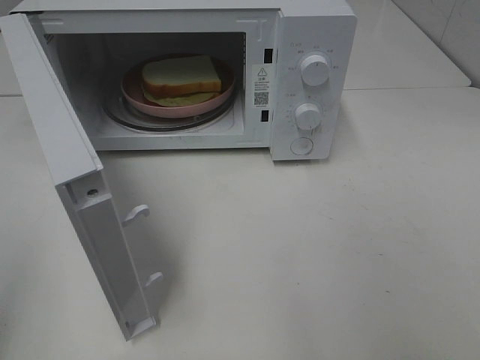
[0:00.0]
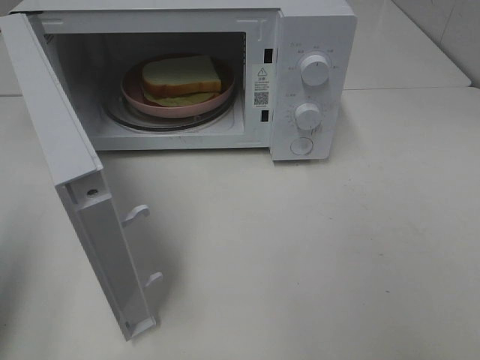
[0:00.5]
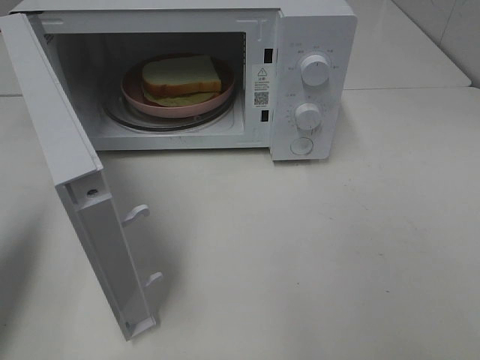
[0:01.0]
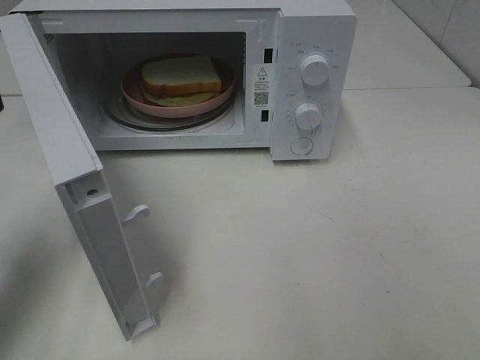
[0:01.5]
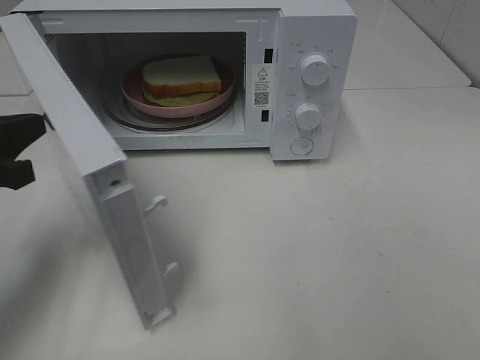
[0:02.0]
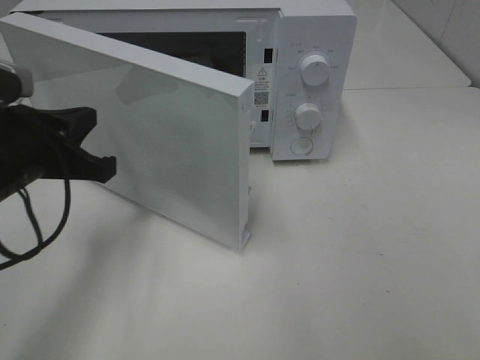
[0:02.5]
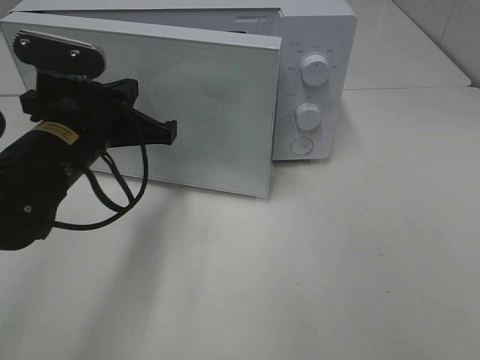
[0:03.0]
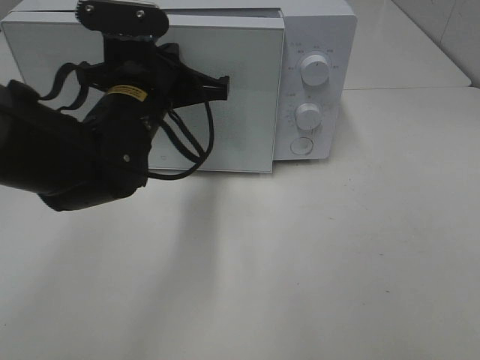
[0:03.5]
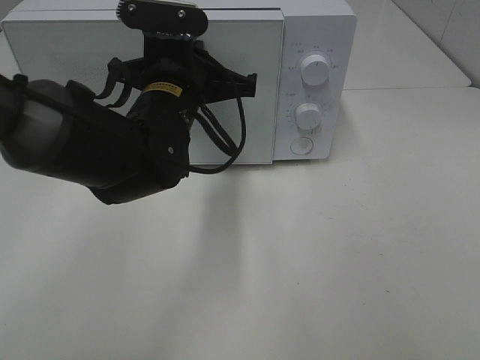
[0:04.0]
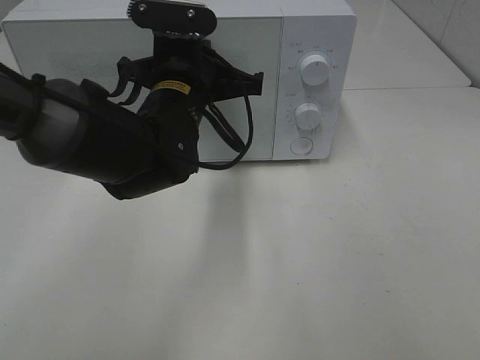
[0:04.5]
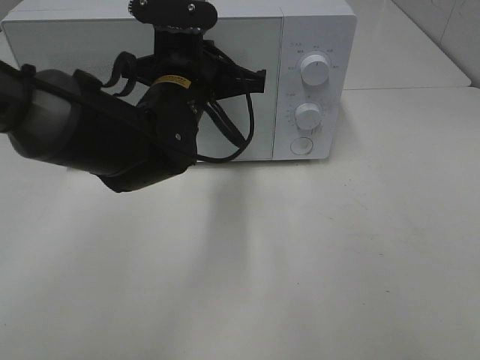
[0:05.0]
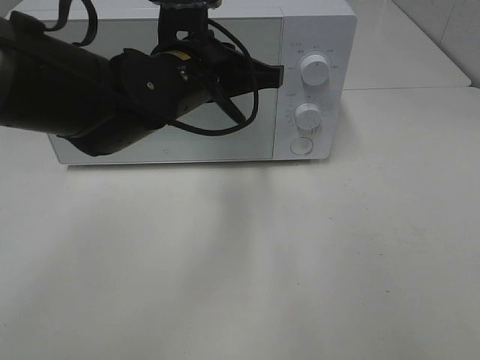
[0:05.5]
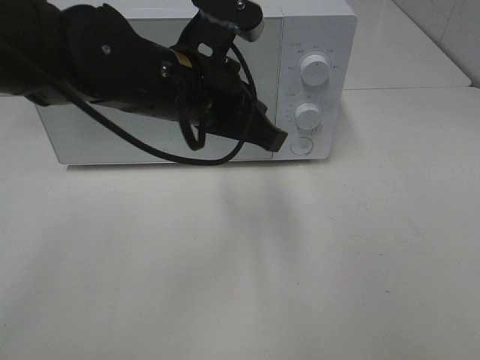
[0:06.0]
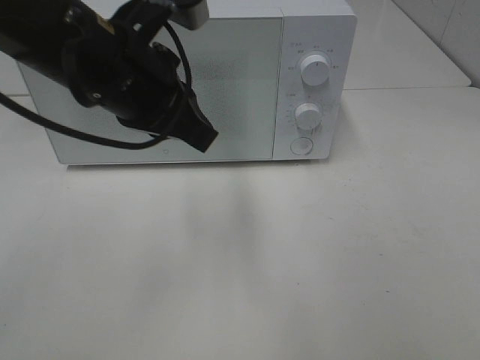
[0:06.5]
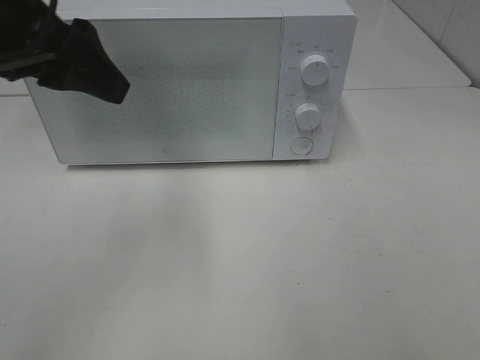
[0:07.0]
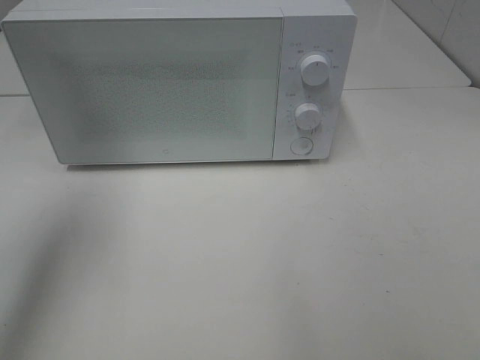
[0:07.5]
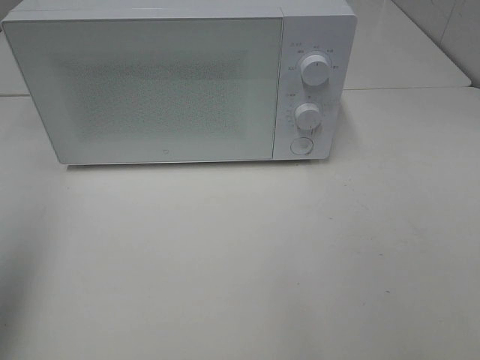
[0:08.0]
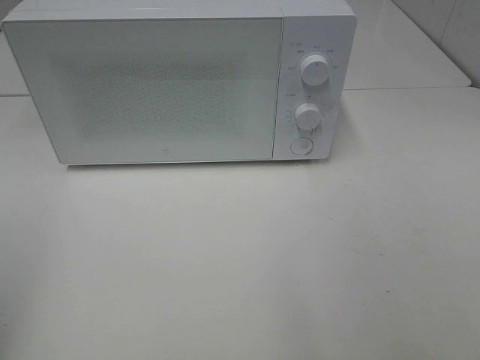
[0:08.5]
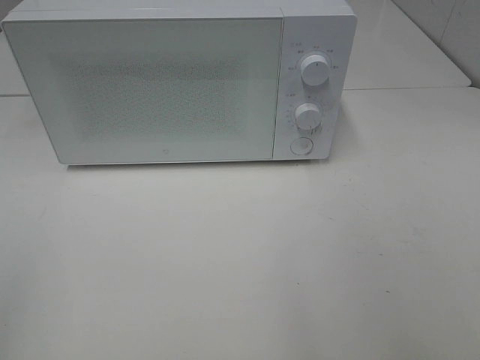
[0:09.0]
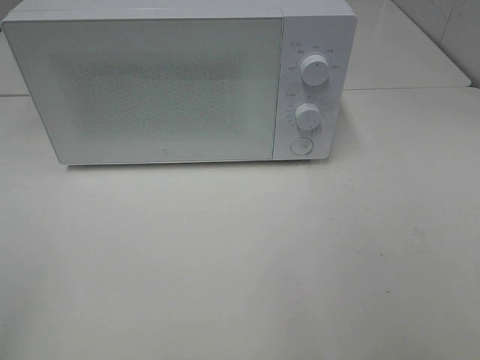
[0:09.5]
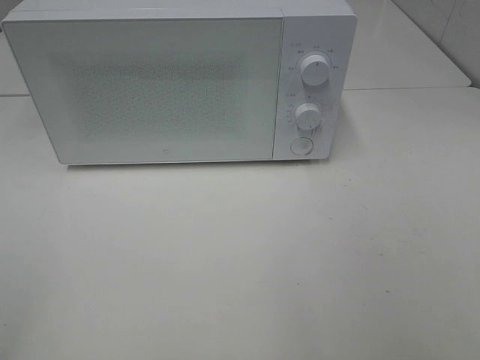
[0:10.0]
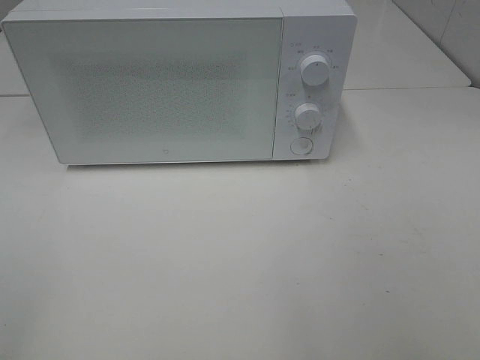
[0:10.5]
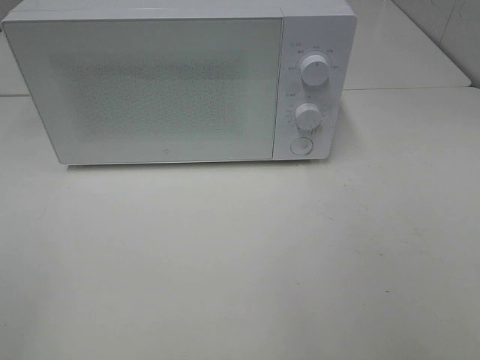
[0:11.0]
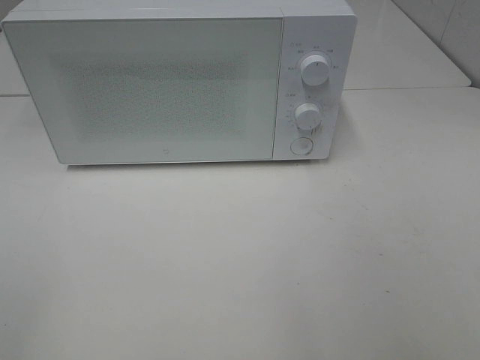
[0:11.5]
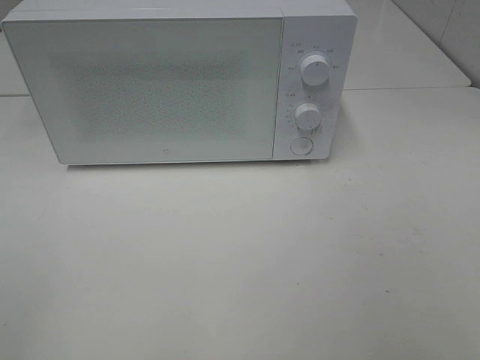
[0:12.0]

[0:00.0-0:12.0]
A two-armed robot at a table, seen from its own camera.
Task of the whole recording: Heat Sandwich.
Step, 0:00.0 to 0:06.0: Left hand: close the microwave door.
0:00.0 to 0:02.0: The left gripper travels forward and downward by roughly 20 cm, and closes.
0:02.0 to 0:04.0: The left gripper is displaced to the right and forward by some 25 cm.
0:04.0 to 0:06.0: The left gripper ends up approximately 5 cm from where it was.
0:06.0 to 0:08.0: The left gripper is displaced to the left, backward and upward by some 35 cm, and opens its fingers.
0:08.0 to 0:10.0: The left gripper travels backward and downward by roughly 15 cm.

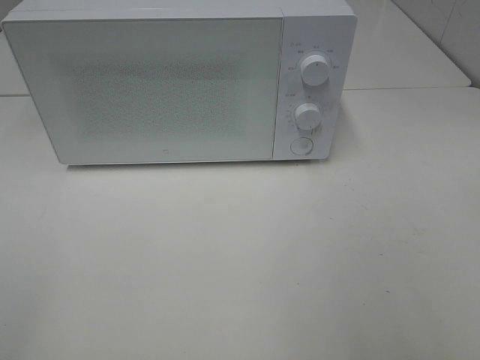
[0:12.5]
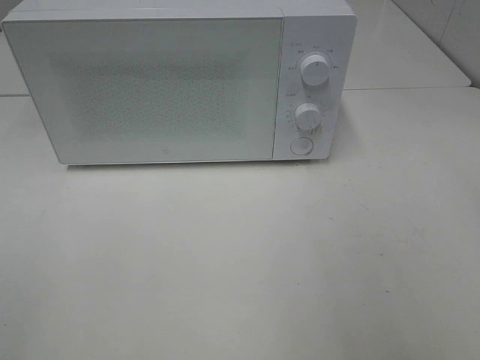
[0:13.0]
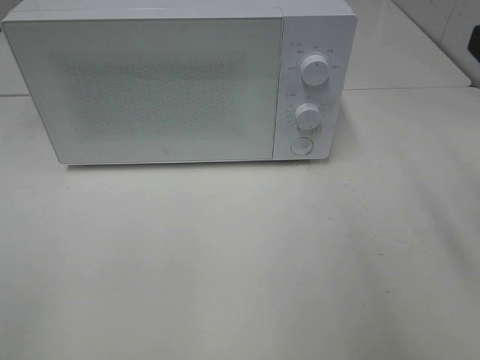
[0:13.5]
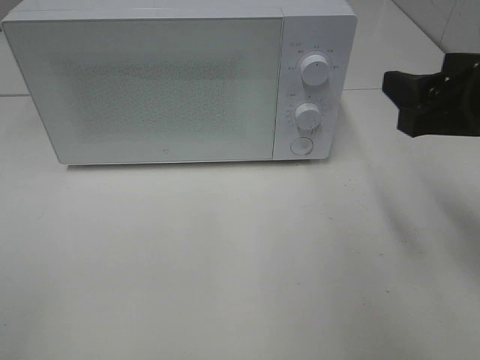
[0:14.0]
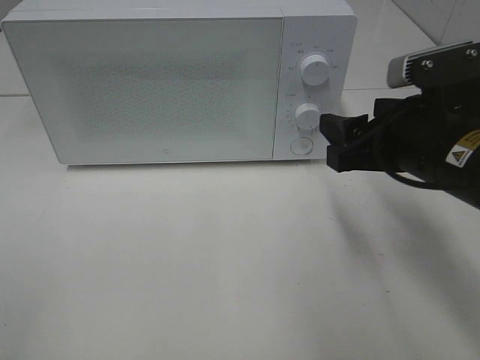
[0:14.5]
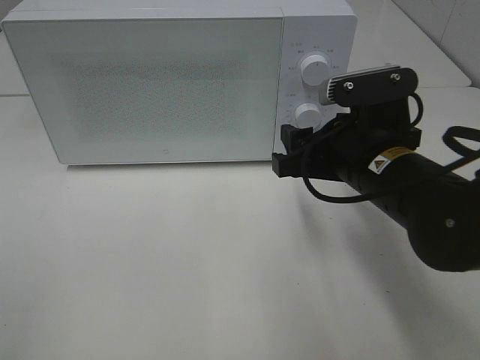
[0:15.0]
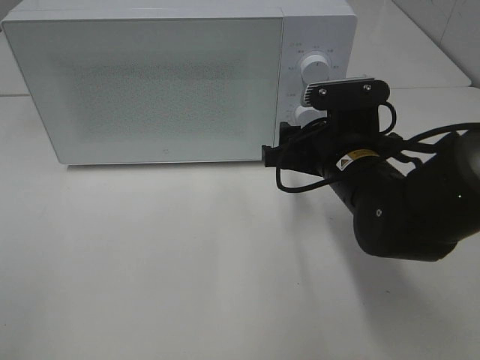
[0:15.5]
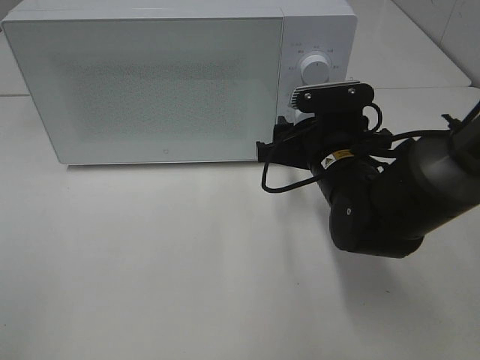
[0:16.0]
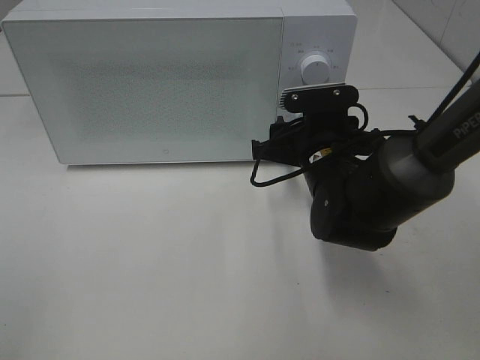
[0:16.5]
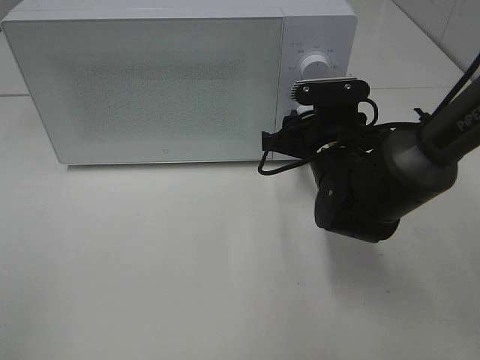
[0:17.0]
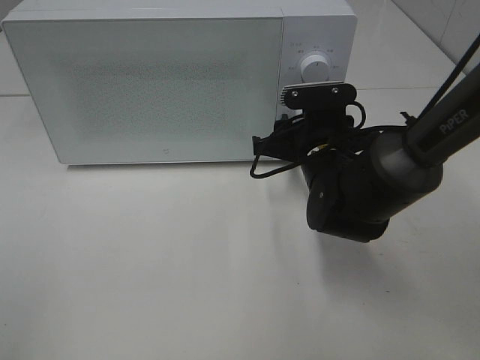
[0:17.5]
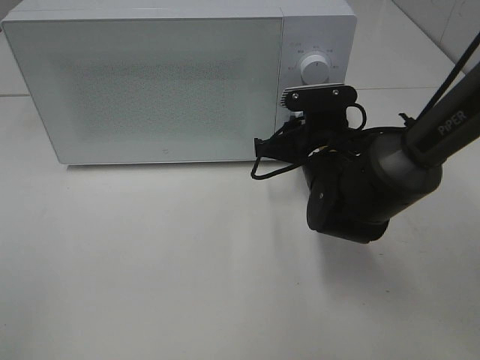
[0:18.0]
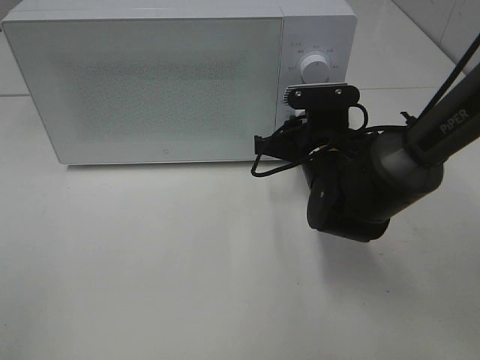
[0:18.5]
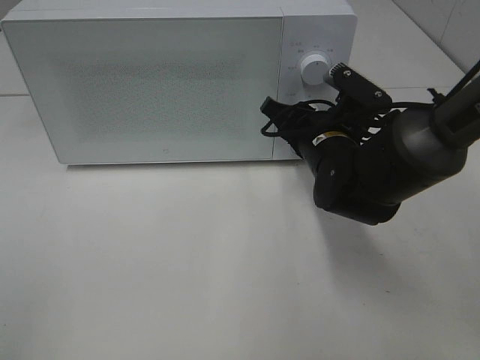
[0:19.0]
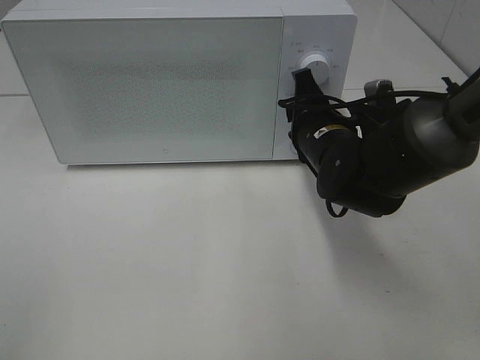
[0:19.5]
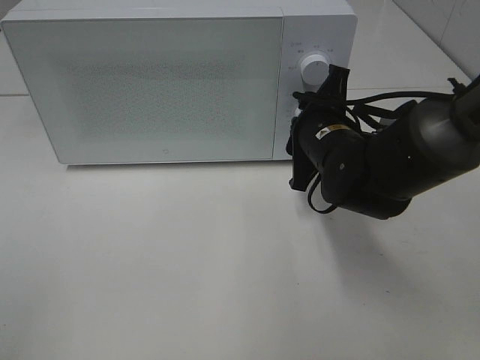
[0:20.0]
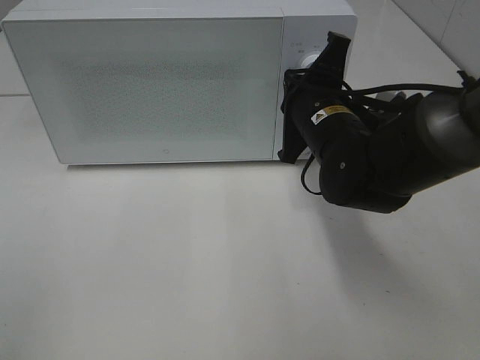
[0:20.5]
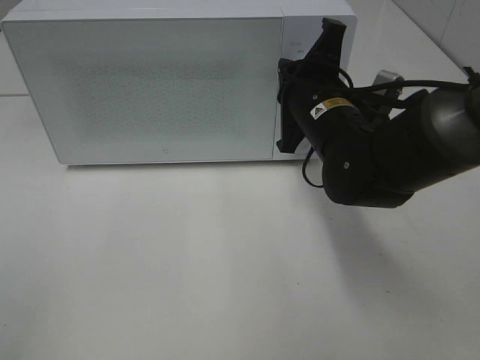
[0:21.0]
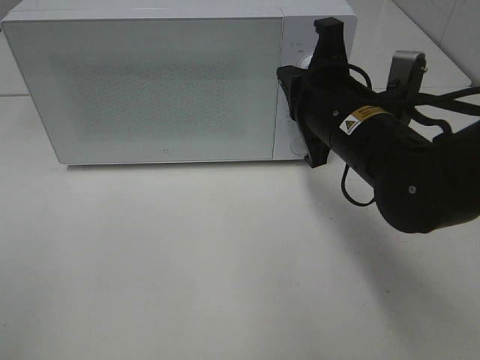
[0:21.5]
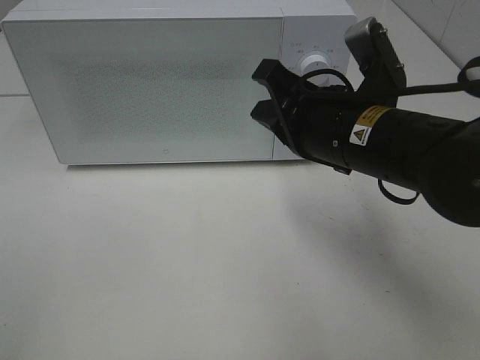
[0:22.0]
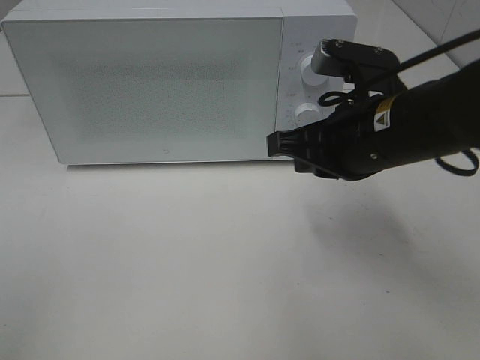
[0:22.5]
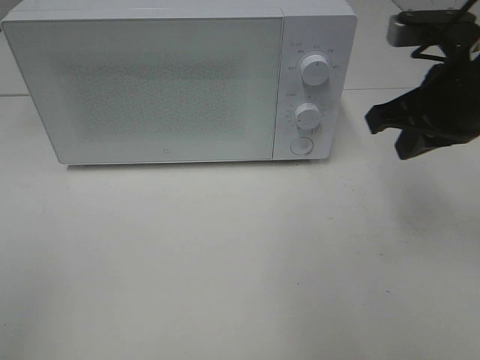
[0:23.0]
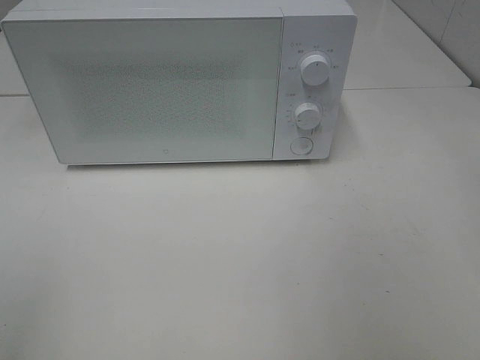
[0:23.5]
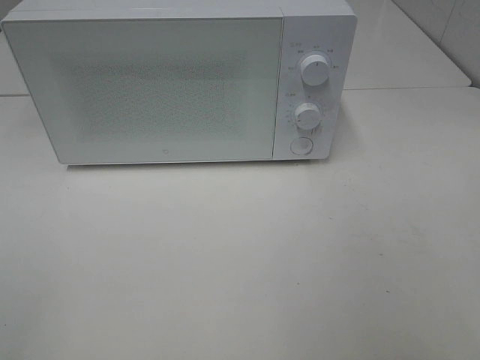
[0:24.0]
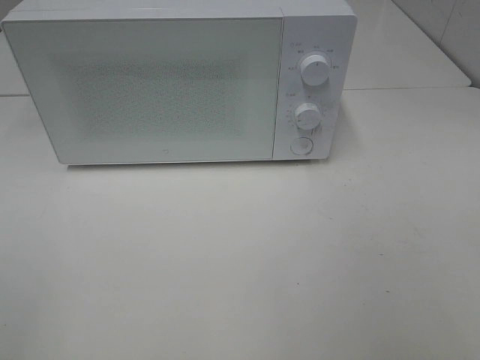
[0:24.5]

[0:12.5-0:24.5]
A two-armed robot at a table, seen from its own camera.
Task of the whole recording: Heat Sandwich.
Step, 0:12.5 to 0:20.5: Right hand: twist timer button.
0:12.5 to 0:14.5: The right gripper heads forward, downward and to the left, covering roughly 25 cm.
0:14.5 to 0:16.5: The right gripper goes roughly 15 cm forward, downward and to the left.
0:16.5 to 0:18.5: The grippers move only a little.
0:18.5 to 0:20.5: The right gripper goes approximately 5 cm upward, and closes up.
0:20.5 to 0:22.5: The right gripper goes approximately 5 cm backward.
0:22.5 to 0:24.5: The right gripper is displaced backward and to the right by approximately 25 cm, and opens up.

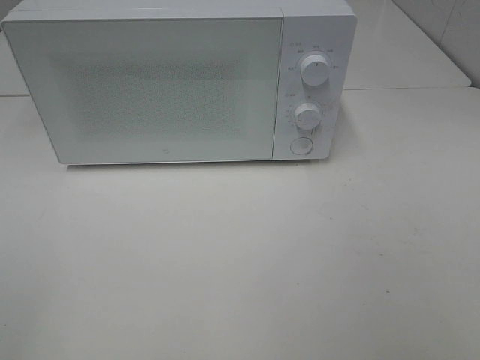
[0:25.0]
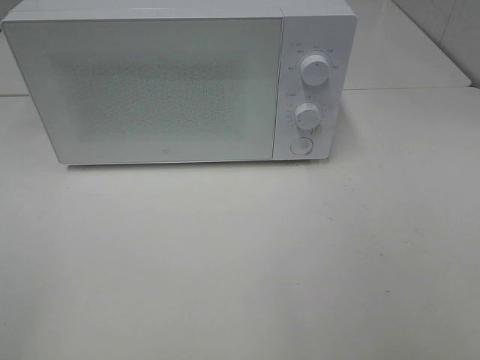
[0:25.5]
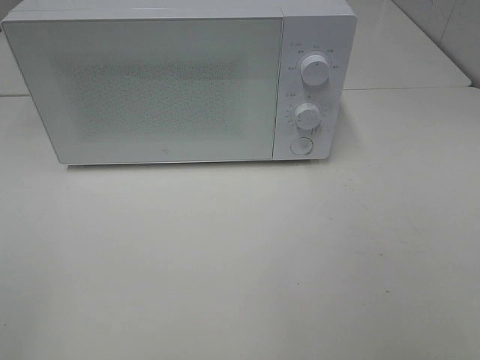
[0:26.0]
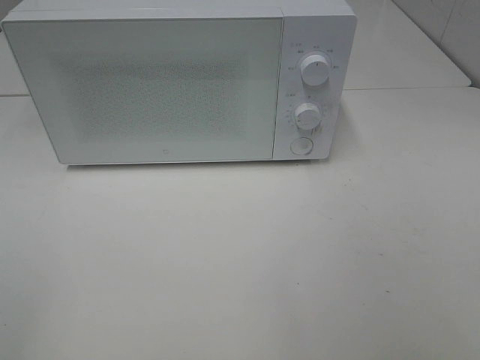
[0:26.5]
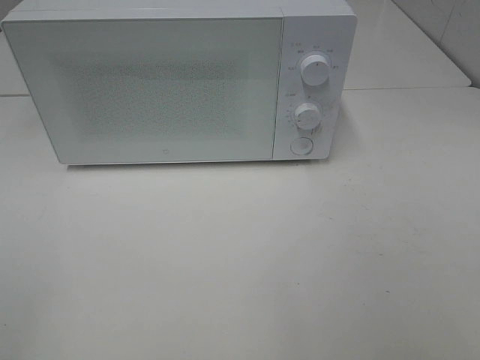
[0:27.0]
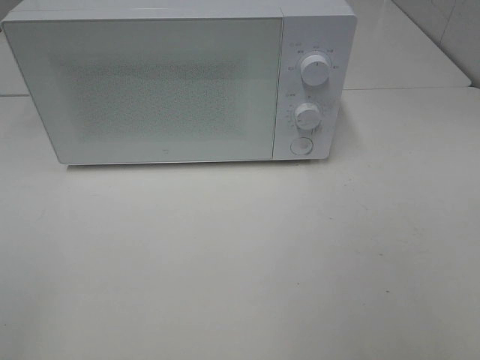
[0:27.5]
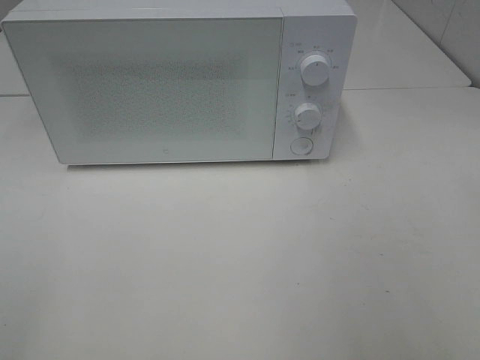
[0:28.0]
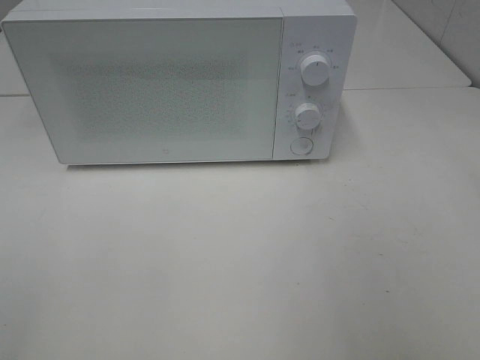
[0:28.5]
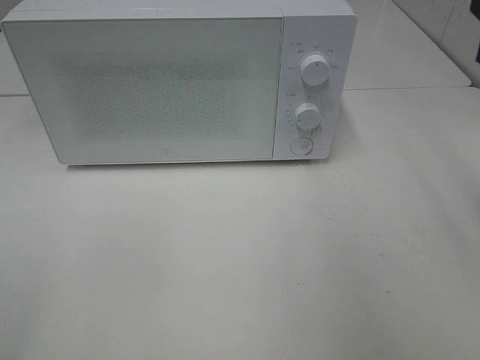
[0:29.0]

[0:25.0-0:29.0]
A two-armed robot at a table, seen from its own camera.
Task of the whole recording: Heat Sandwich.
0:25.0 to 0:27.0: Both grippers stay put.
